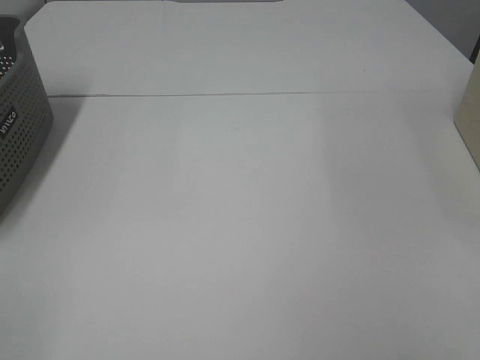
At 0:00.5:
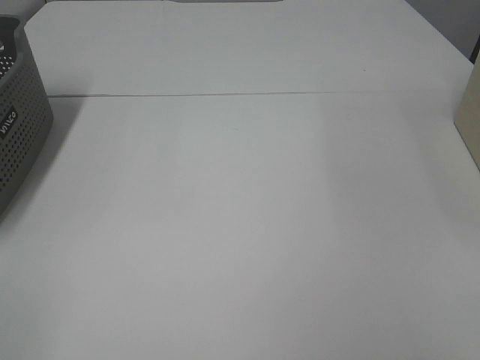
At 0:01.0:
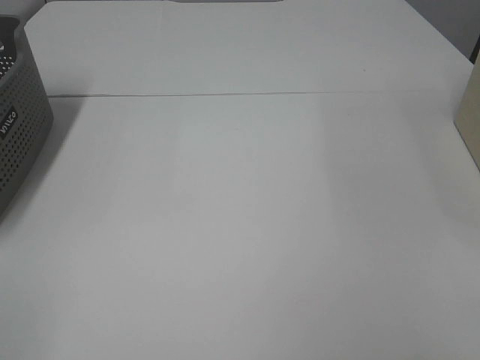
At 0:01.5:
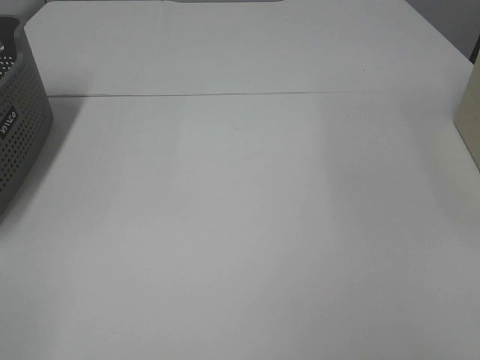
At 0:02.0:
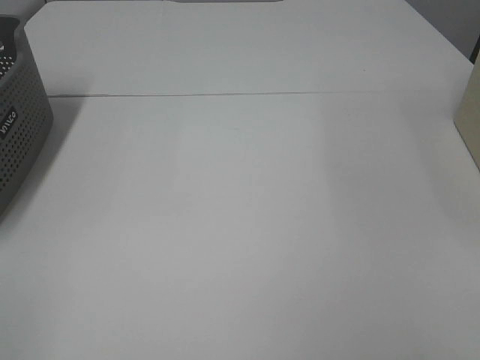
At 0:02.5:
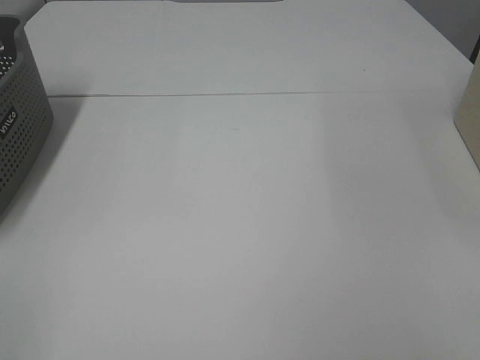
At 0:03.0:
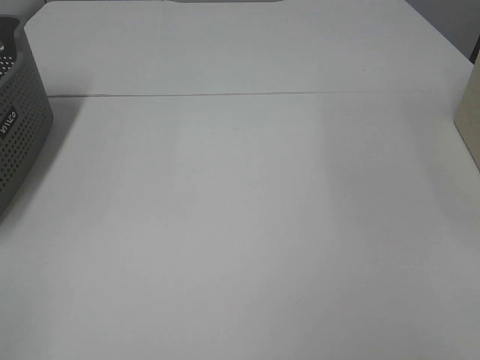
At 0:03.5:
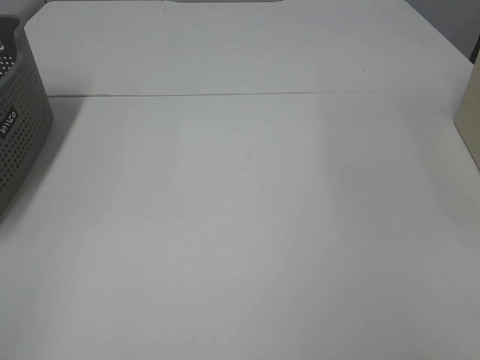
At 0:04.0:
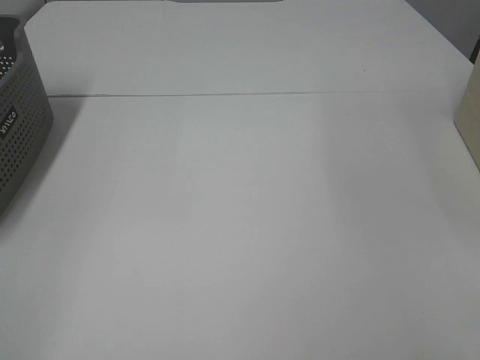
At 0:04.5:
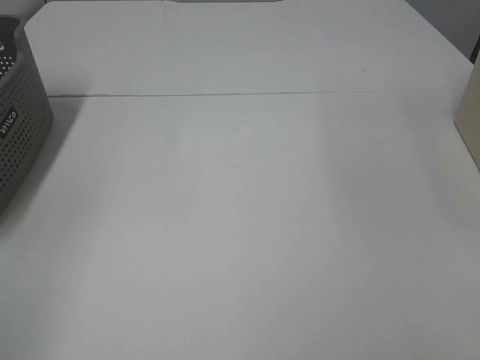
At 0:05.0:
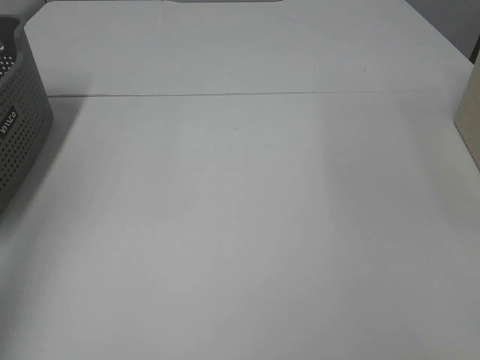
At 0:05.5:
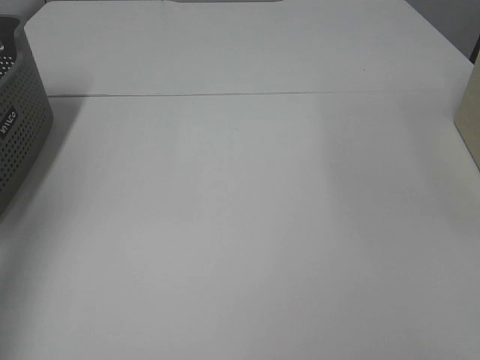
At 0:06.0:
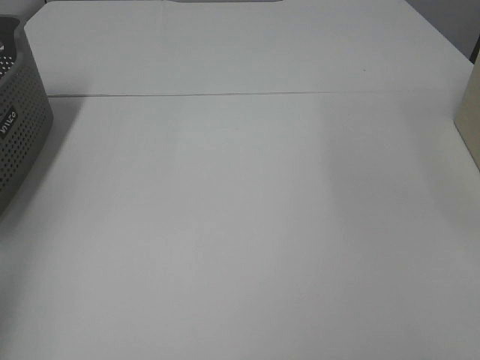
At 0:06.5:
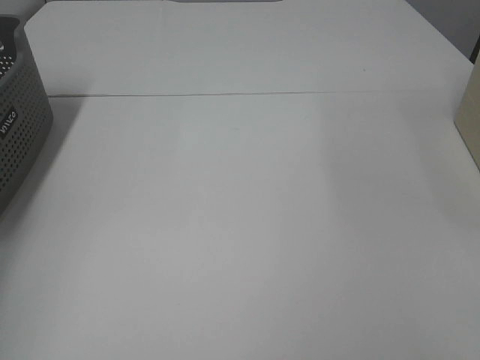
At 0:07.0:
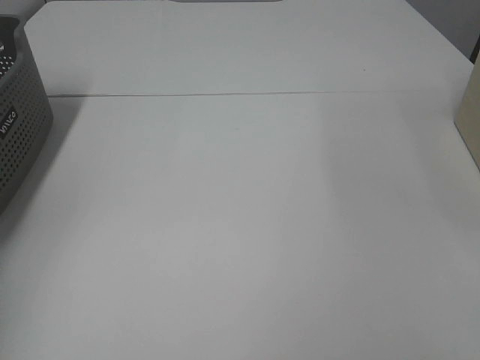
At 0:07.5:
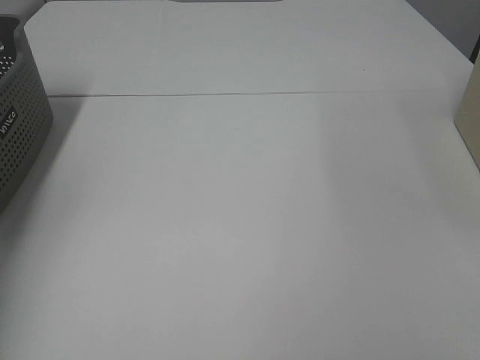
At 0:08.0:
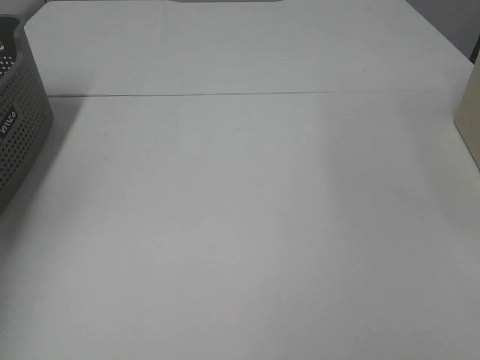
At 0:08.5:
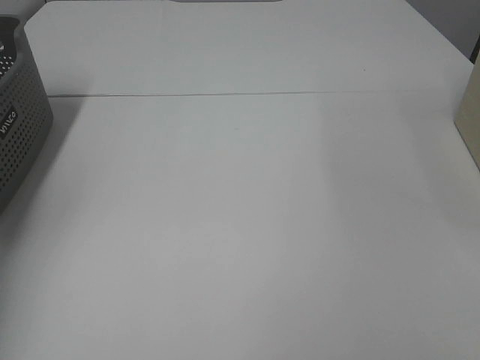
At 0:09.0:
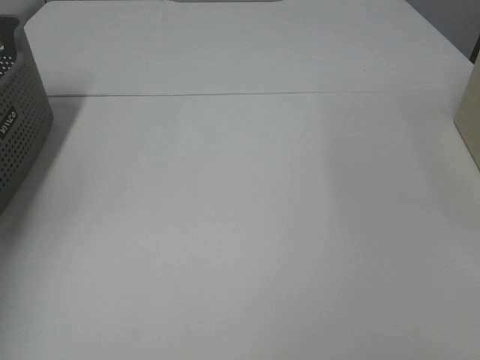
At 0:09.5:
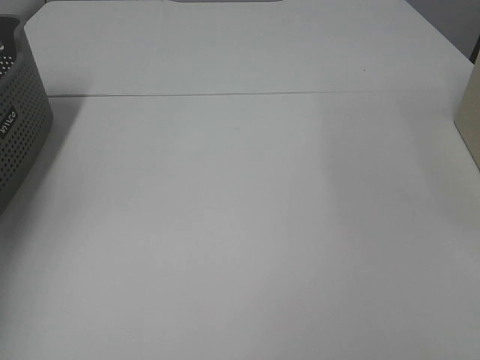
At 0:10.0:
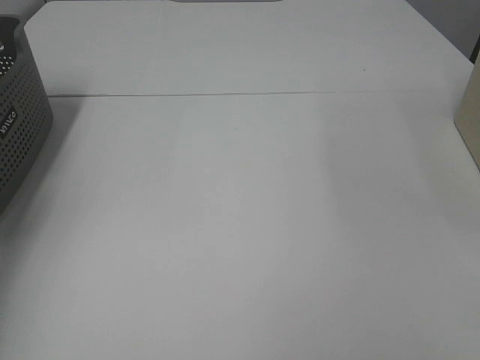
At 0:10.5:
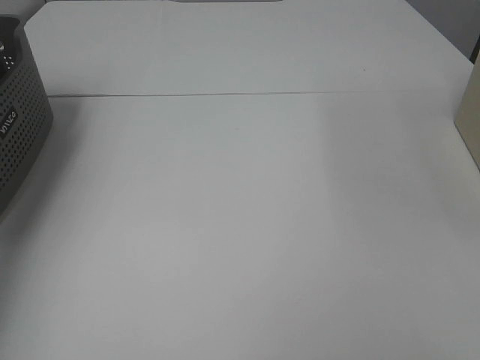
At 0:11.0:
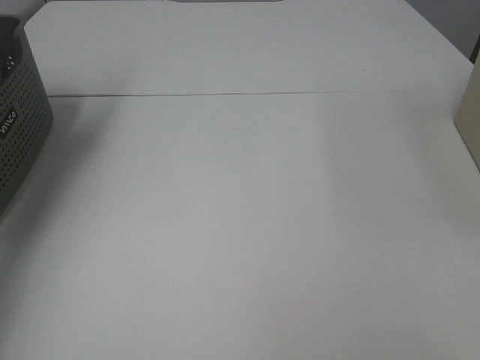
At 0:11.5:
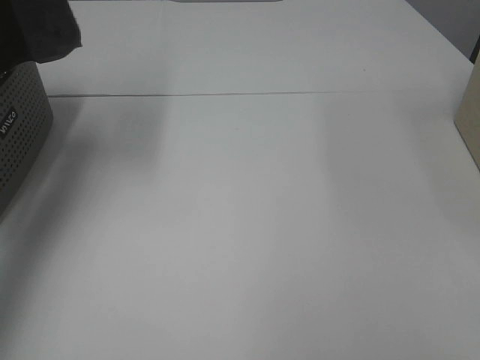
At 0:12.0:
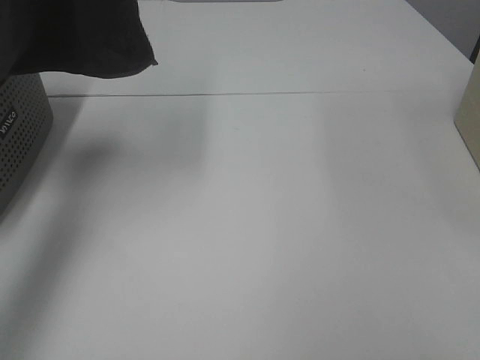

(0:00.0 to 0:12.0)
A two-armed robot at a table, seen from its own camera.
Task of the whole recording: Remove the towel and place it.
0:04.0 - 0:06.0: The left gripper heads forward, covering roughly 25 cm.
0:10.0 - 0:12.0: The left gripper goes some 25 cm upward and to the right.

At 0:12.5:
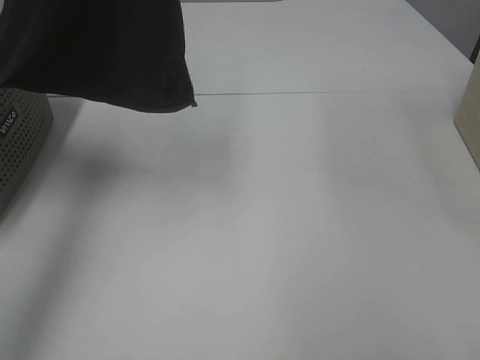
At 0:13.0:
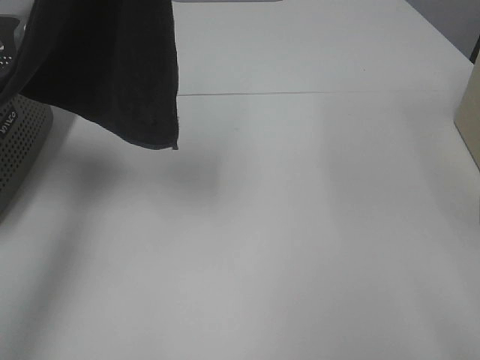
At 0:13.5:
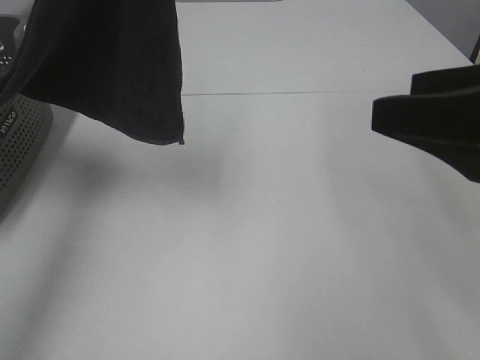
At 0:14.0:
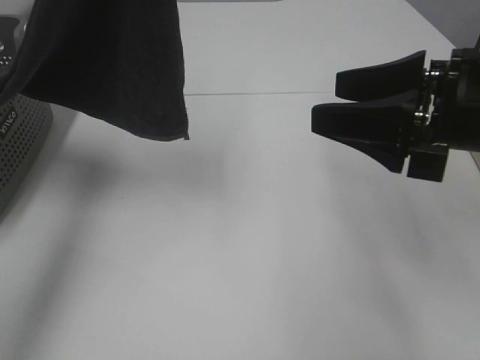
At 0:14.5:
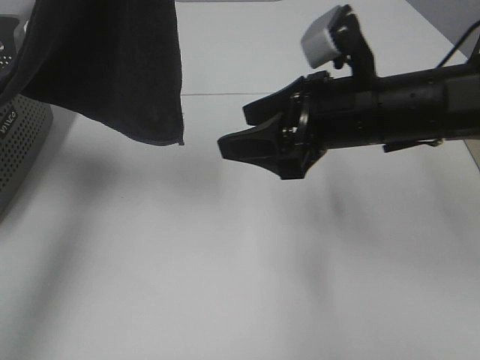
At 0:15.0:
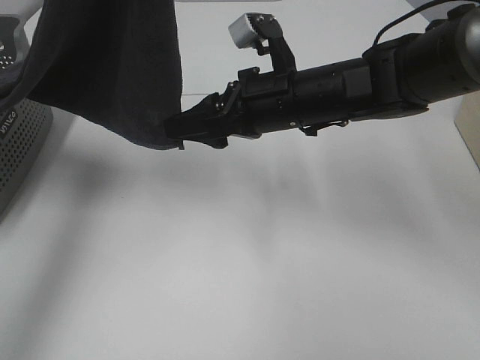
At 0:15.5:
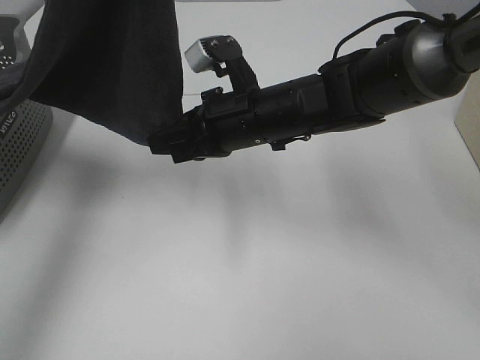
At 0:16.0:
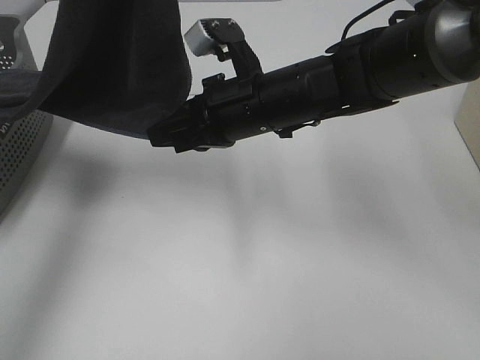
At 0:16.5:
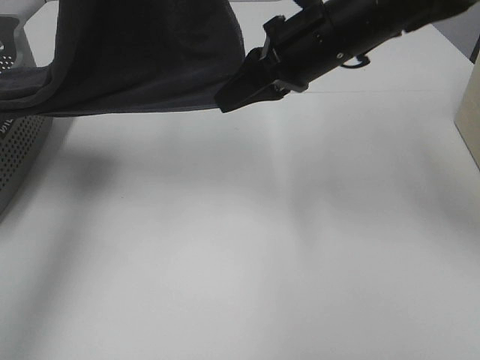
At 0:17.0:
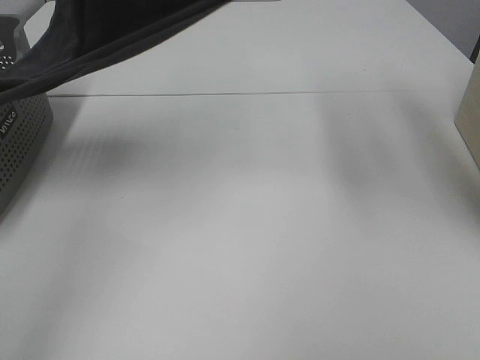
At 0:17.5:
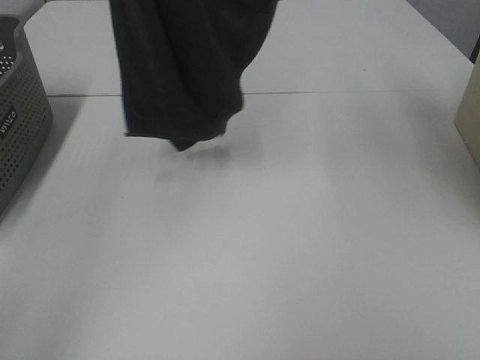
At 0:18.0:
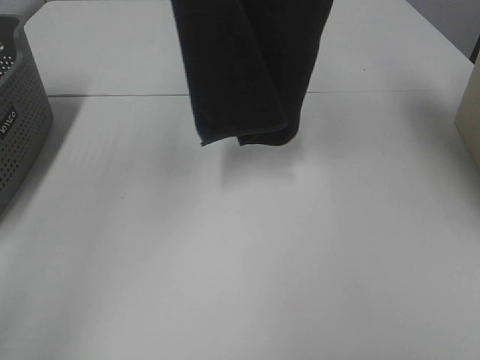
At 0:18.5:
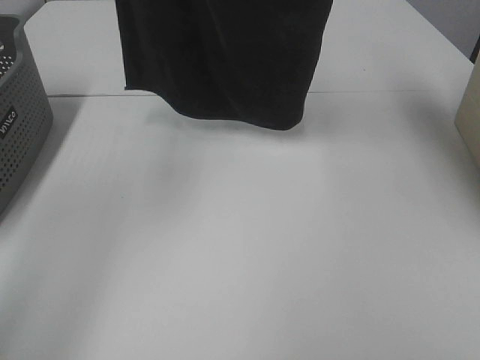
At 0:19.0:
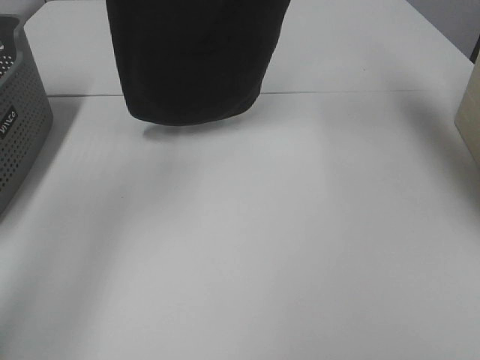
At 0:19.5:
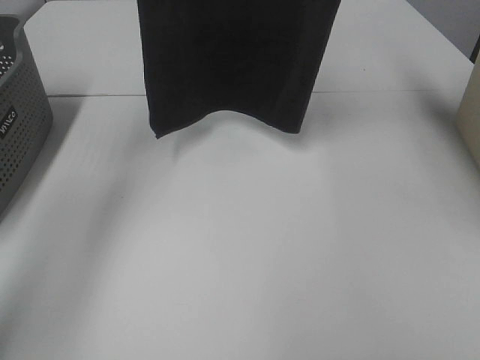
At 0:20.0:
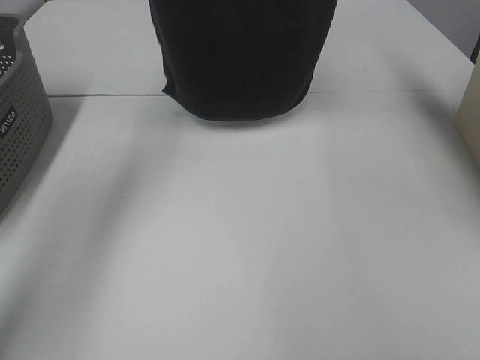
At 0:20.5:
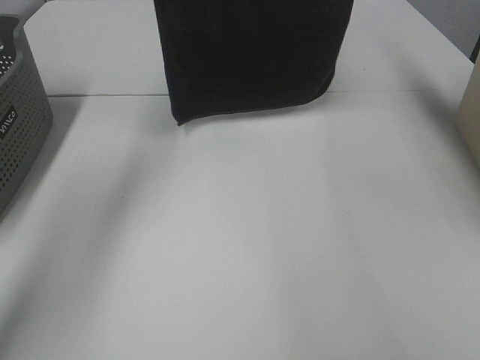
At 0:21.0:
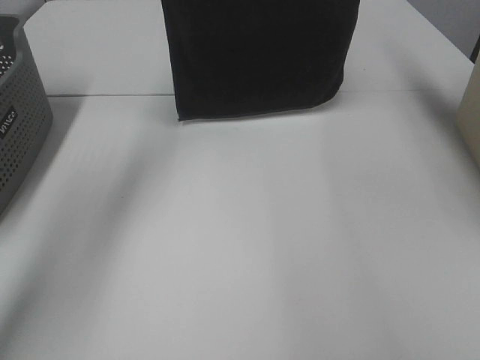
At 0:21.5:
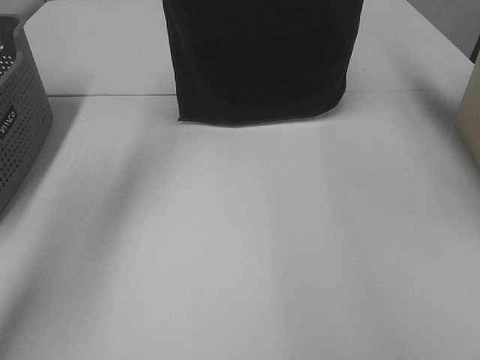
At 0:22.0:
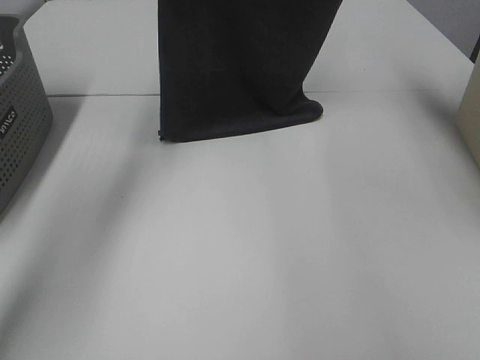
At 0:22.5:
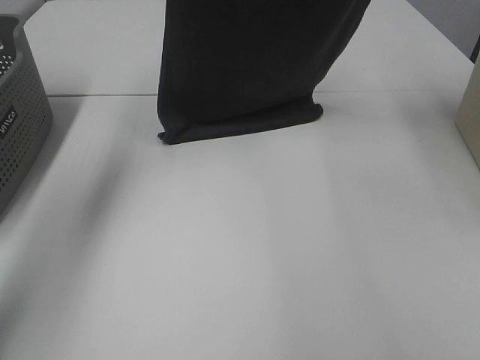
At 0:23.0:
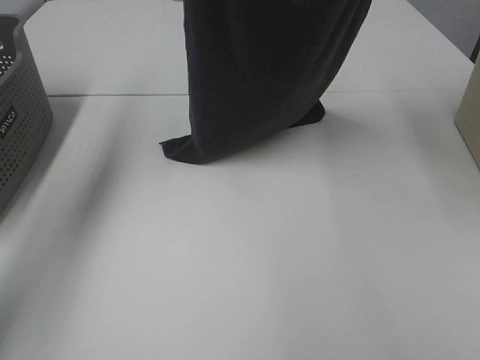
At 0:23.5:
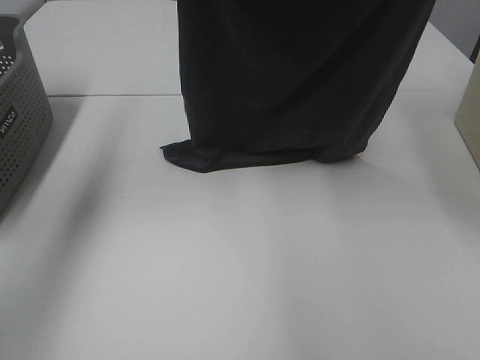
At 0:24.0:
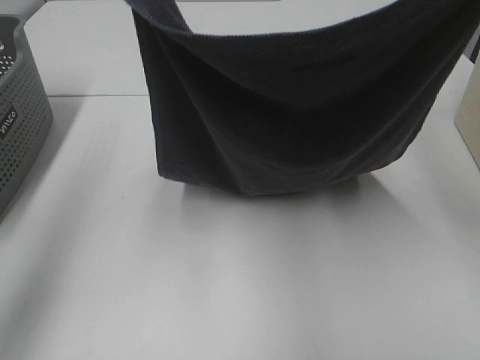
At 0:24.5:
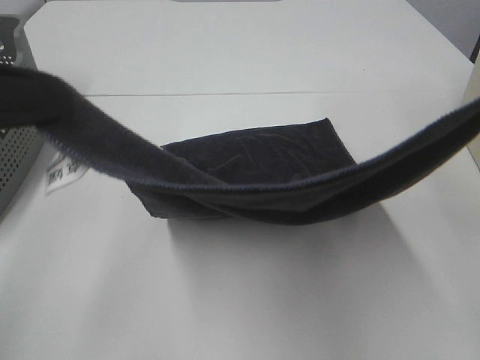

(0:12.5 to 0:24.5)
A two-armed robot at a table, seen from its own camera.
Task of the whole recording: Remove the towel and place it.
Step, 0:12.5 - 0:15.5: Right hand: grab a corner of the grey towel and straighten it.
Step, 0:16.0 - 0:21.0: Left hand: spread the grey towel flat on the table.
Step, 0:16.0 - 0:21.0: Right hand: spread the grey towel flat on the table.
0:12.5 - 0:14.5: The right gripper travels forward and to the left by some 30 cm.
0:14.5 - 0:16.5: The right gripper travels forward and upward by roughly 10 cm, and closes its fingers.
0:16.5 - 0:18.5: The left gripper moves upward and forward, some 15 cm. Meanwhile the right gripper moves upward, approximately 30 cm.
0:18.5 - 0:20.5: The right gripper goes roughly 10 cm forward and to the right, while the left gripper shifts some 10 cm forward and downward.
0:20.5 - 0:22.5: The right gripper is displaced backward by some 5 cm.
0:22.5 - 0:24.5: The right gripper shifts about 30 cm backward and downward. The left gripper is displaced backward by about 30 cm.

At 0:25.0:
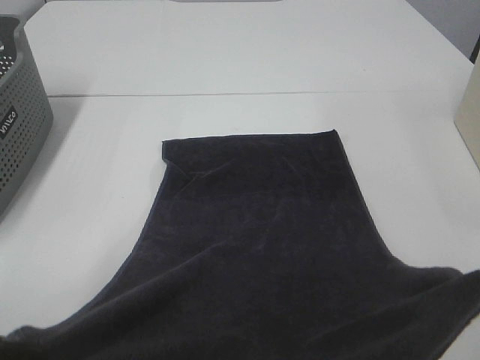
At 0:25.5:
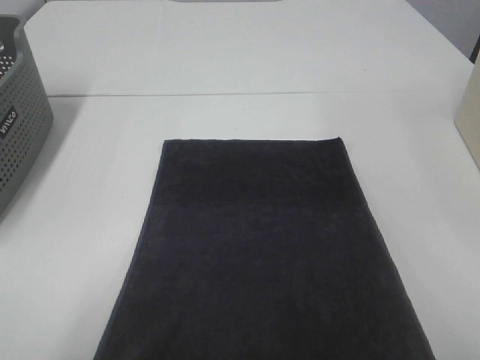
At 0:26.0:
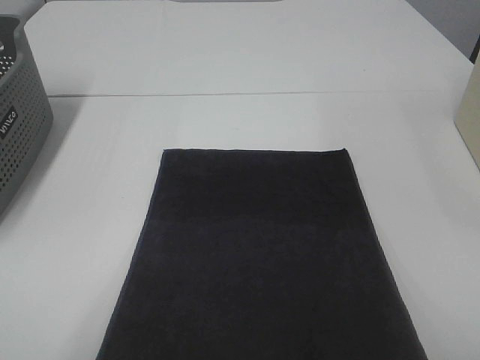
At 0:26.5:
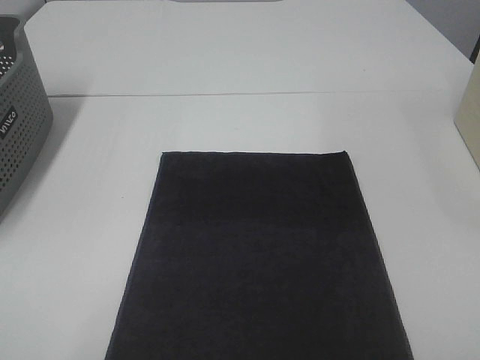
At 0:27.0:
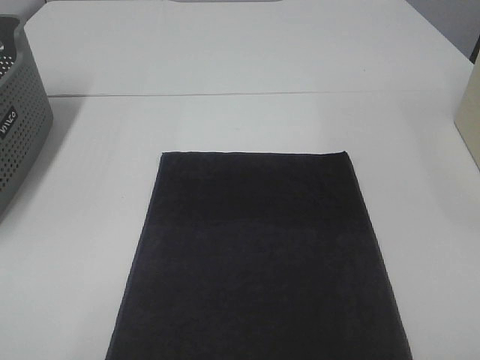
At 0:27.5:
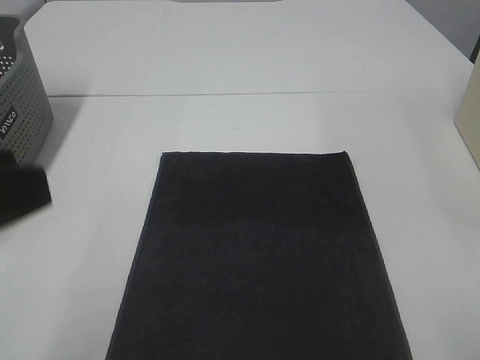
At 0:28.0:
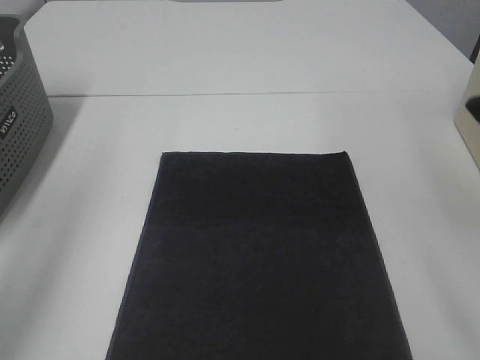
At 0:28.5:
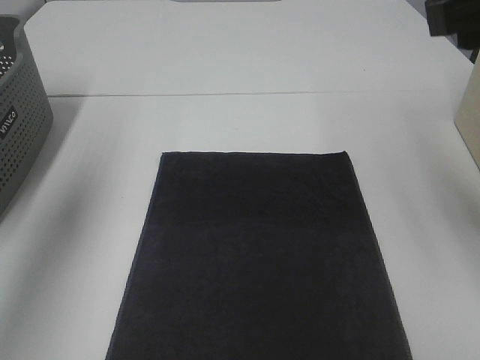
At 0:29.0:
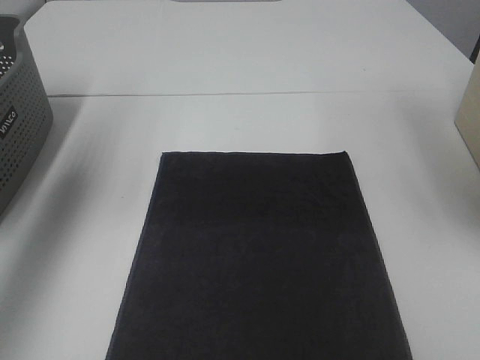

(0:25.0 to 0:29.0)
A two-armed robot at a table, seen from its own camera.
Task of the whole recording: Remove the towel and place it.
0:25.0 - 0:27.0: The right gripper moves roughly 5 cm, and opens. The left gripper heads downward and backward, covering some 10 cm, and opens up.
0:27.0 - 0:29.0: Both grippers move forward and upward, some 35 cm.
